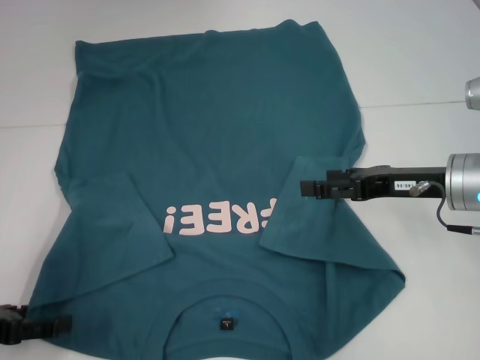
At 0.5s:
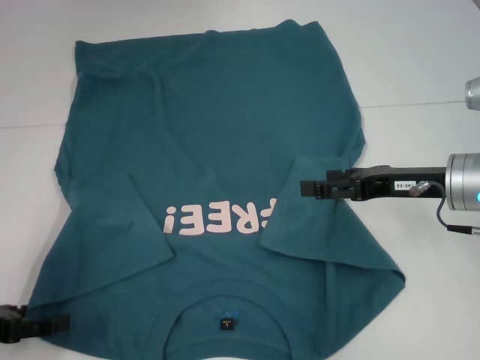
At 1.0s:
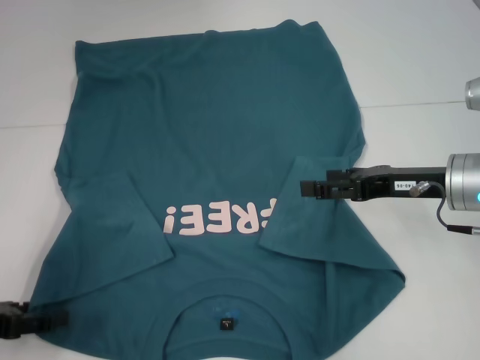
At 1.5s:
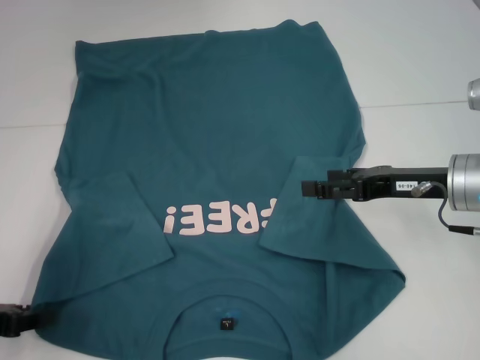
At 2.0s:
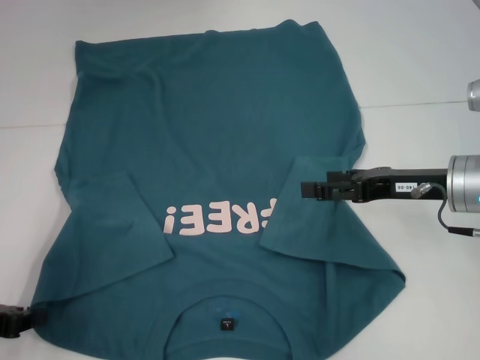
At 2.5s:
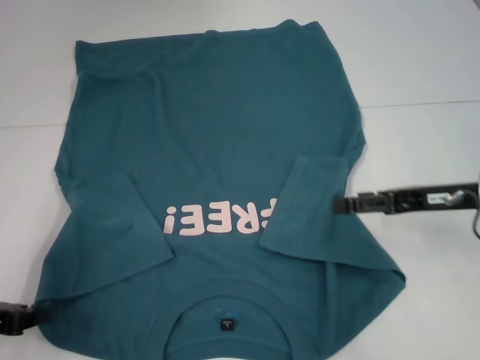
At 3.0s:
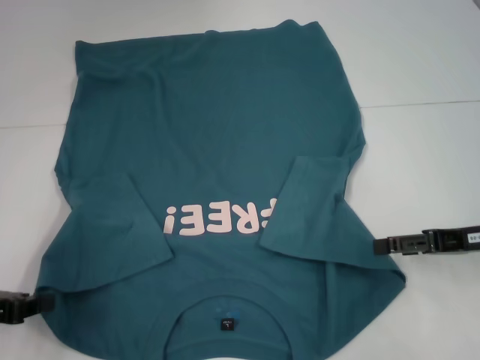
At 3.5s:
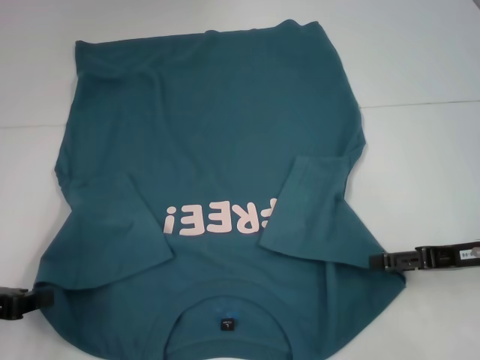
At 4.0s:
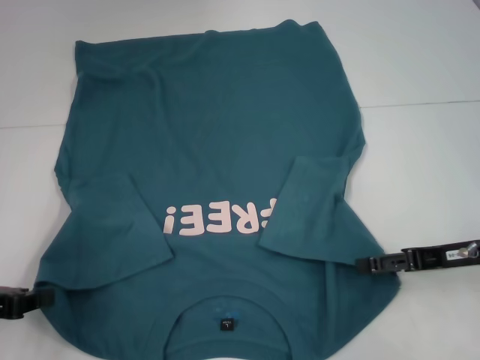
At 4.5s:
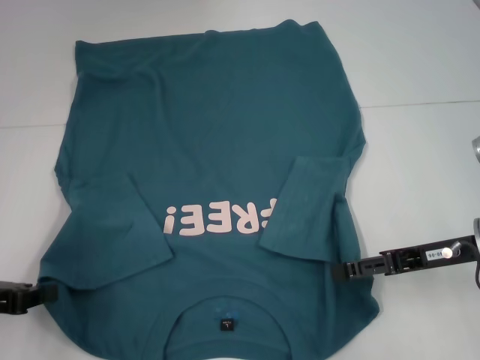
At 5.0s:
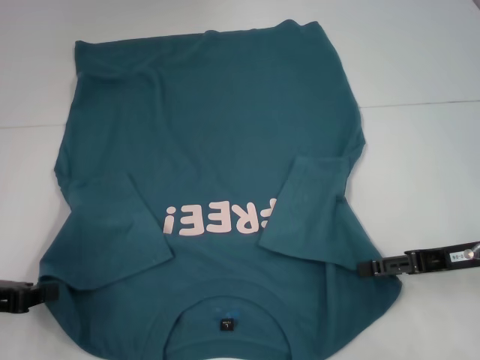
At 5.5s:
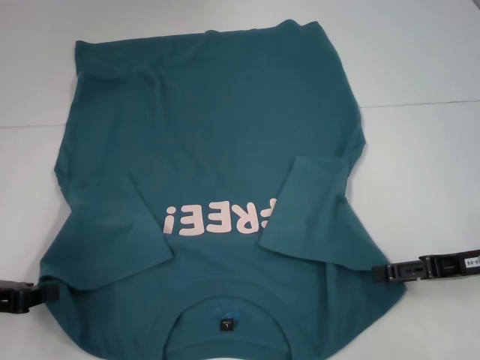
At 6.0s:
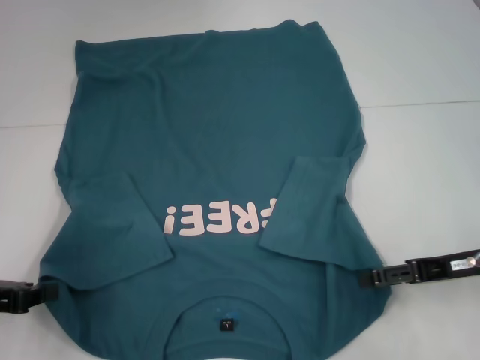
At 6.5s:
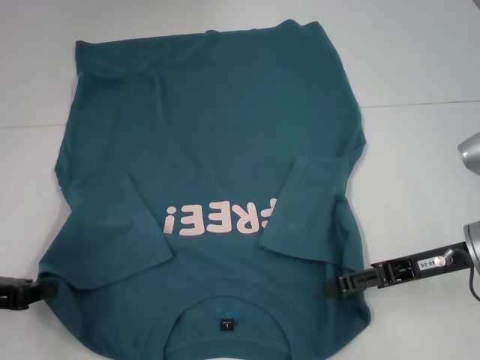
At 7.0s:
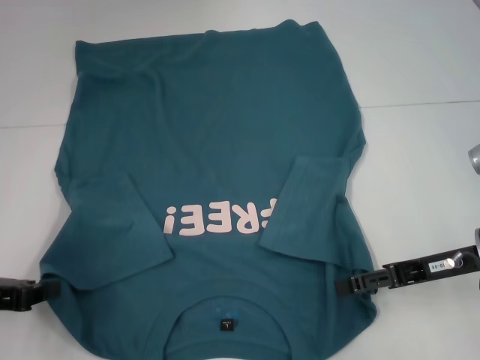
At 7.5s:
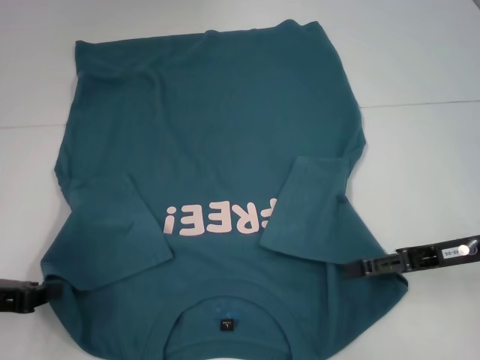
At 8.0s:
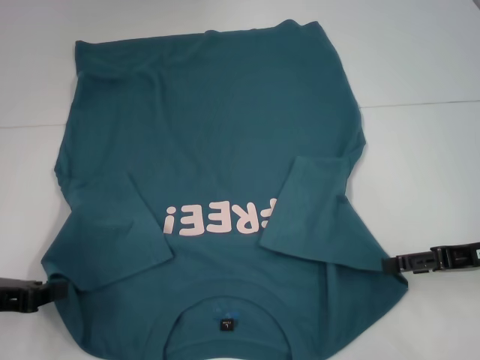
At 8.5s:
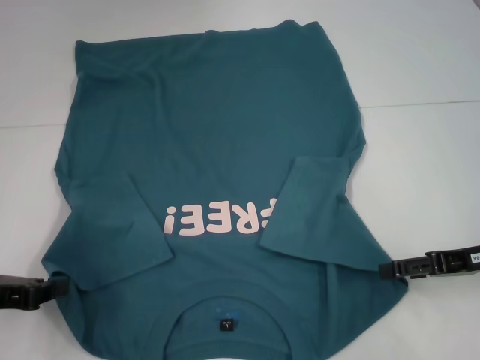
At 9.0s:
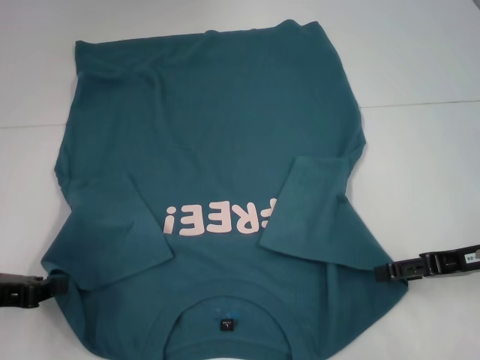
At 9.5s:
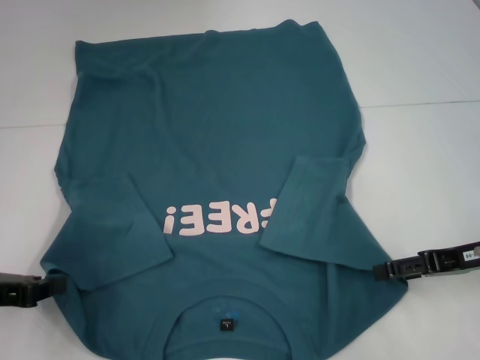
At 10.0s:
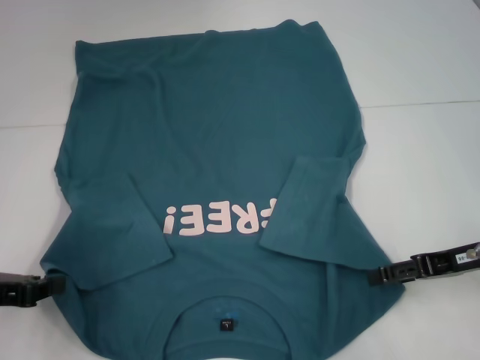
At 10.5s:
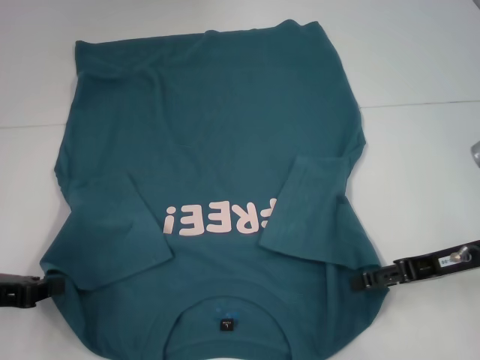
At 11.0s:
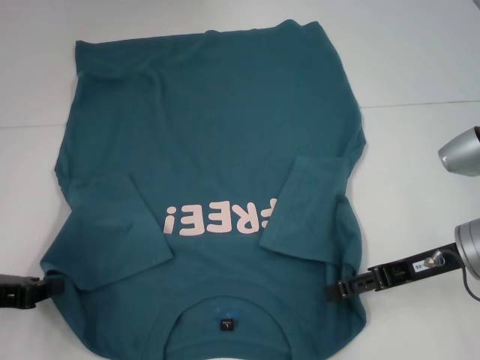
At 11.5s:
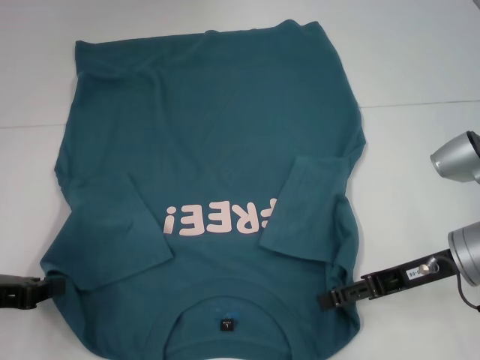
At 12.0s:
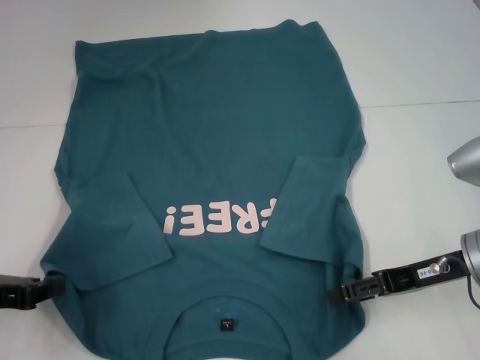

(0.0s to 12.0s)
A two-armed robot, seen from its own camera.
Step, 0.0s - 2.5s: Grab the bottom left corner with your left hand.
0.0s - 2.0s: The left gripper closes.
2.0s - 4.0s: The right gripper shifts by approximately 5 cm.
4.0s - 12.0s: The grippers make only small movements.

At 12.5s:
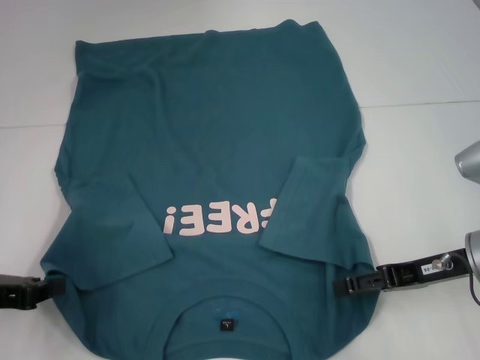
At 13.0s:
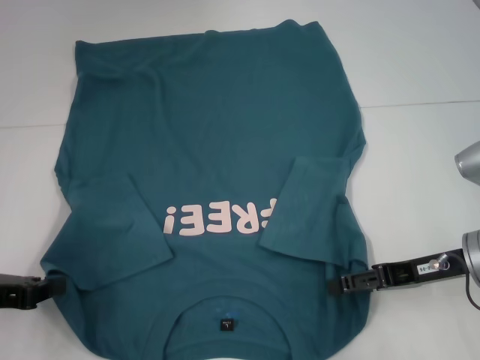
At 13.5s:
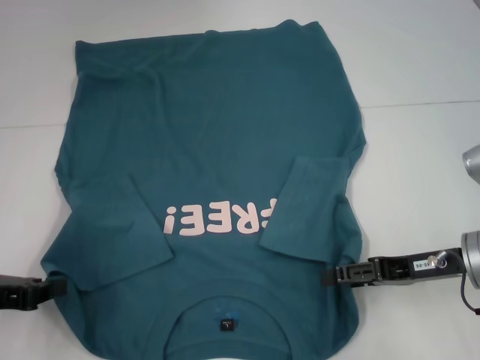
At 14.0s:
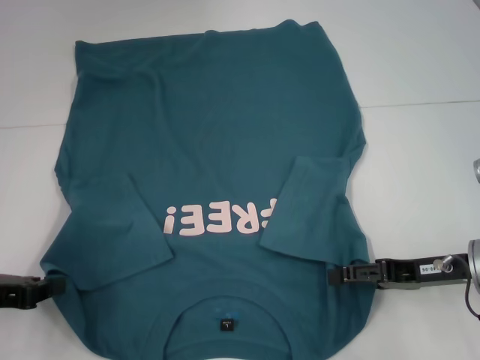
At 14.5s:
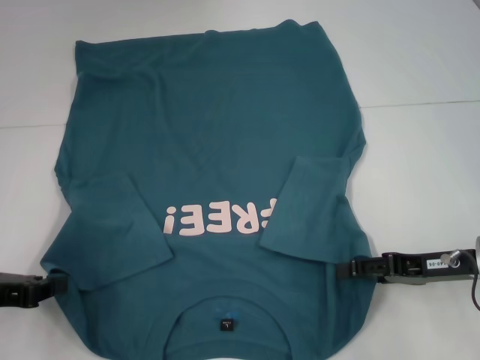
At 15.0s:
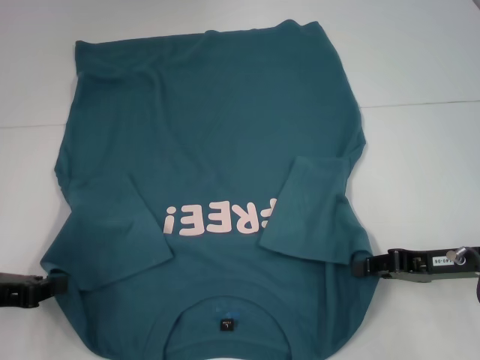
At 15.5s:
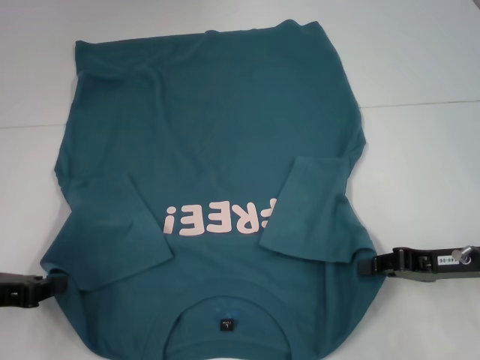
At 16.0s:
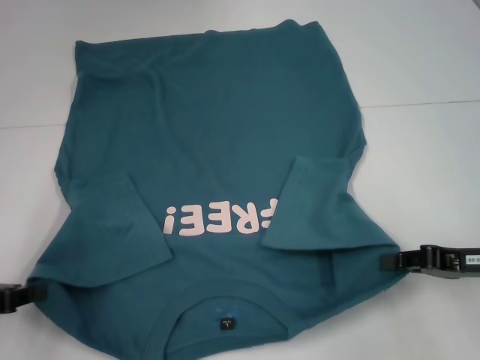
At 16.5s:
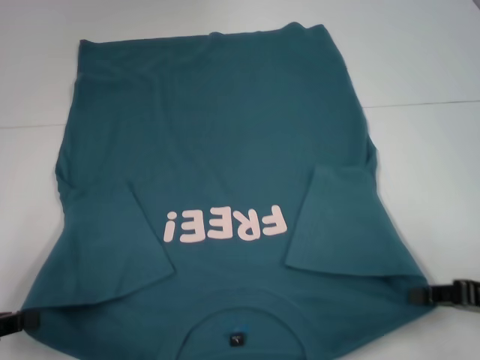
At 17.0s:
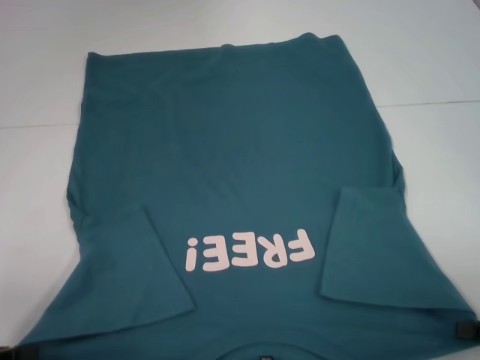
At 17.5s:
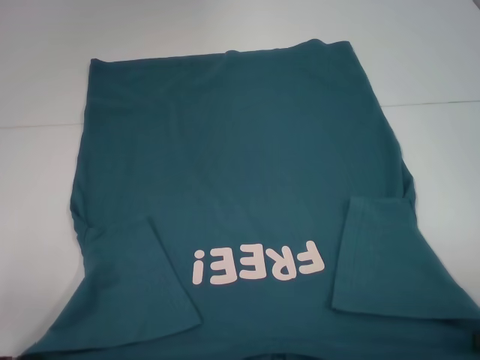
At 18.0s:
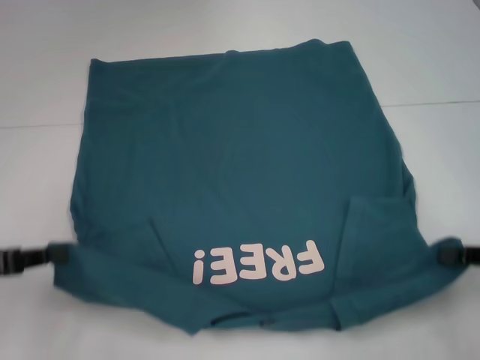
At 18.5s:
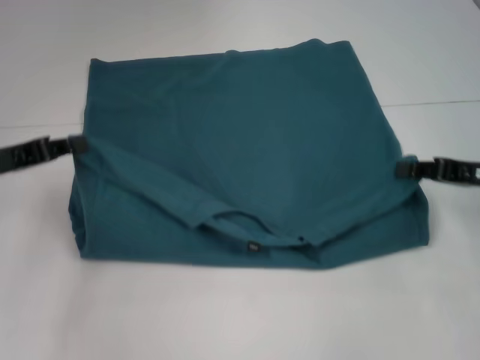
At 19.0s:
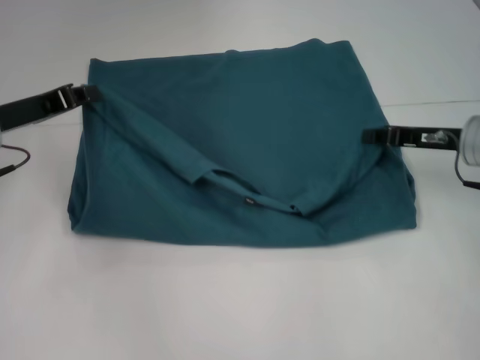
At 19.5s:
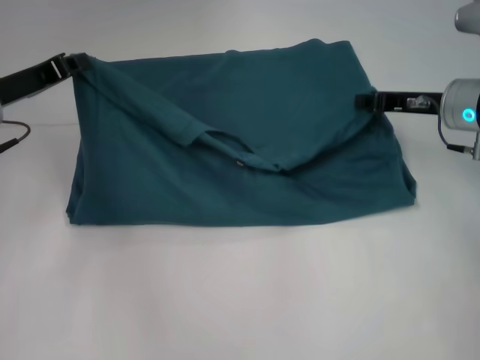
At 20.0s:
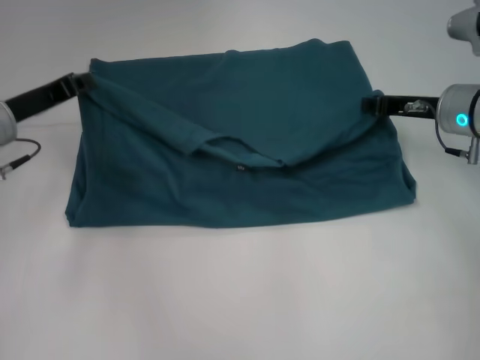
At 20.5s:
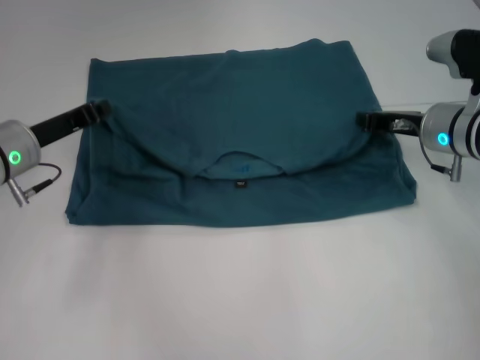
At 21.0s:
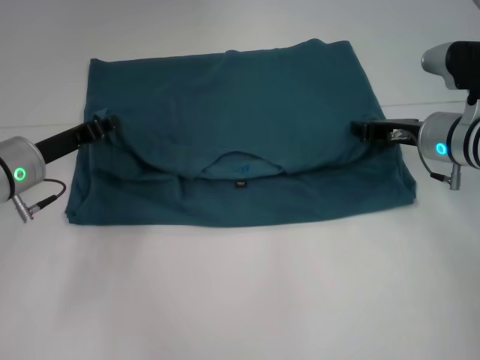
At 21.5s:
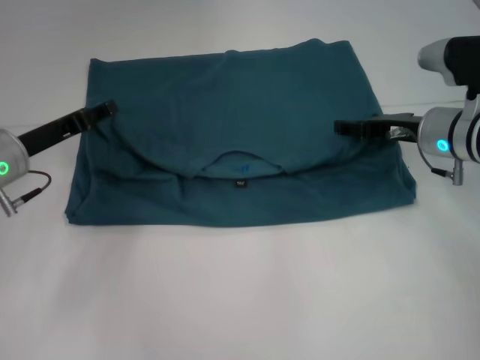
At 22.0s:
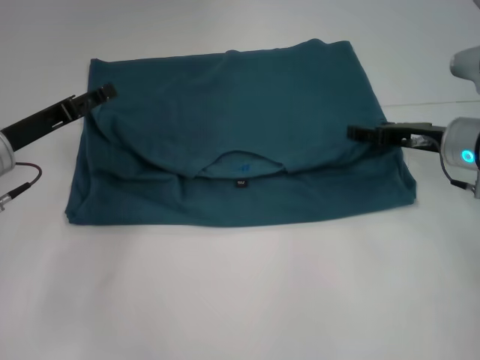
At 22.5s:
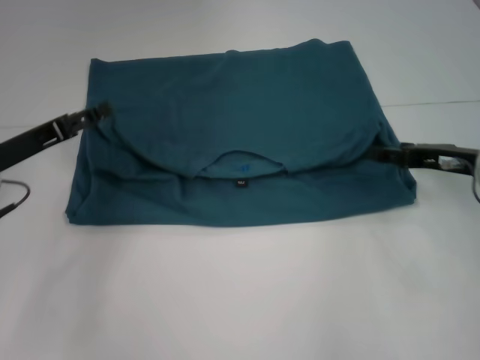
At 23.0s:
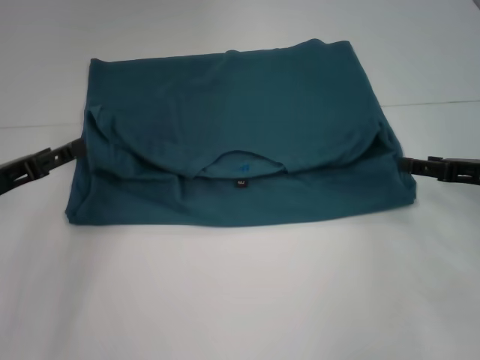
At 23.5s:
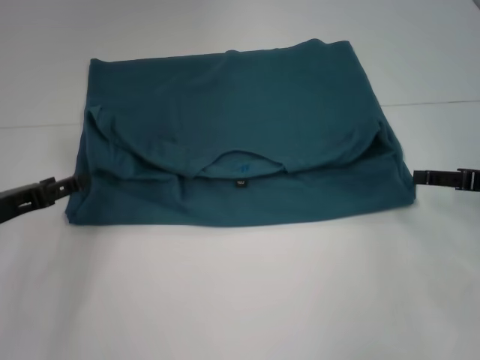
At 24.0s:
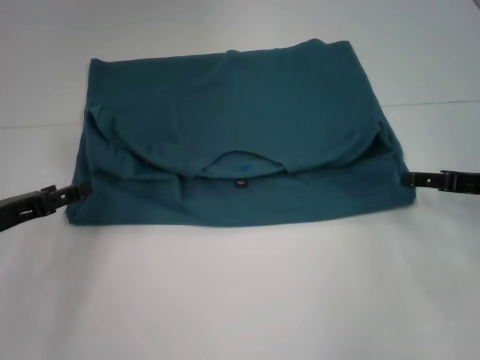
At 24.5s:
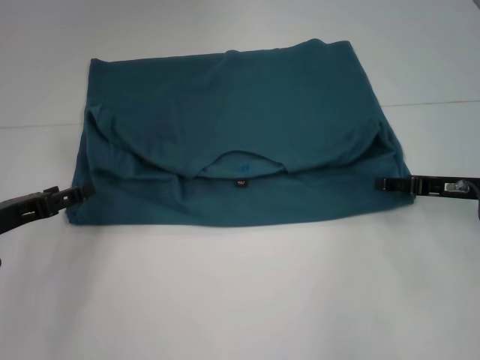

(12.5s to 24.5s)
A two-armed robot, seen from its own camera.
Step, 12.5s - 15.5s: Grab the bottom right corner with your right hand.
Step, 16.0s - 22.0s: Fold the clothes to the left.
Step, 16.0s - 22.0s: Fold the clothes to the right.
12.5s - 14.5s: The grippers move only a little.
14.5s - 16.5s: The left gripper shifts by about 5 cm. Meanwhile the right gripper heads to the right, covering approximately 5 cm, and closes up.
16.5s - 18.5s: Both grippers travel together forward, about 10 cm.
18.5s - 20.5s: The right gripper is displaced forward and to the left by about 10 cm; the left gripper heads to the right and forward, covering approximately 10 cm.
20.5s - 22.5s: The right gripper moves backward, some 5 cm, and opens, while the left gripper ends up some 5 cm from where it was, and opens.
22.5s - 24.5s: The left gripper moves roughly 5 cm.

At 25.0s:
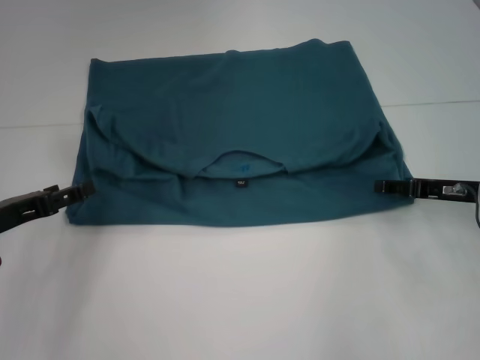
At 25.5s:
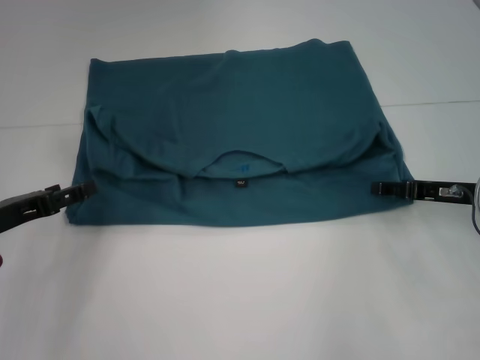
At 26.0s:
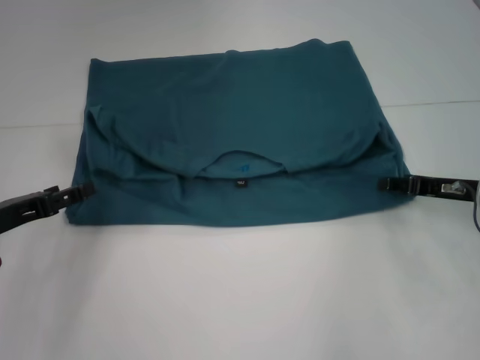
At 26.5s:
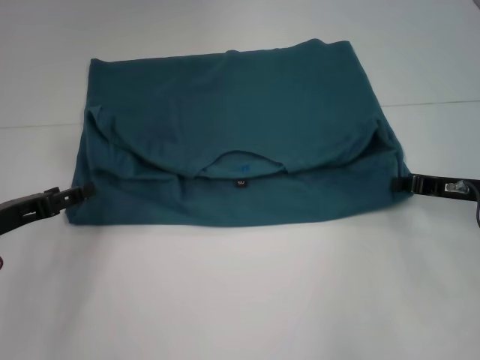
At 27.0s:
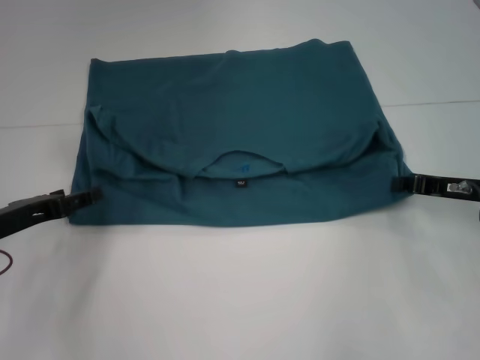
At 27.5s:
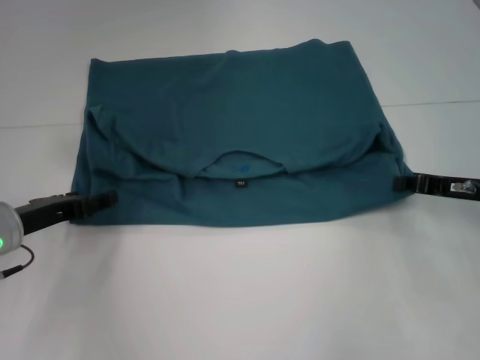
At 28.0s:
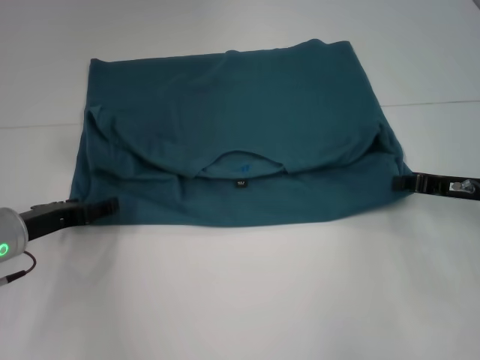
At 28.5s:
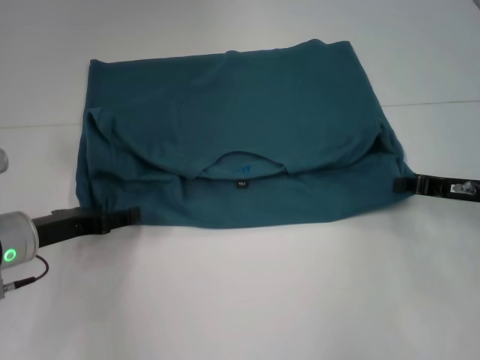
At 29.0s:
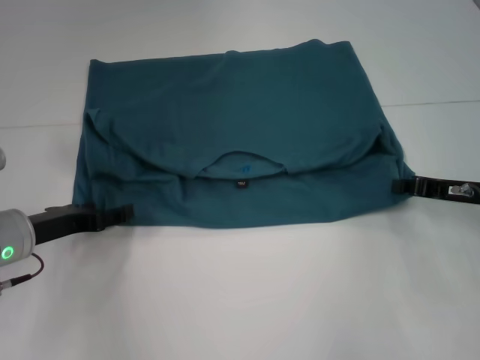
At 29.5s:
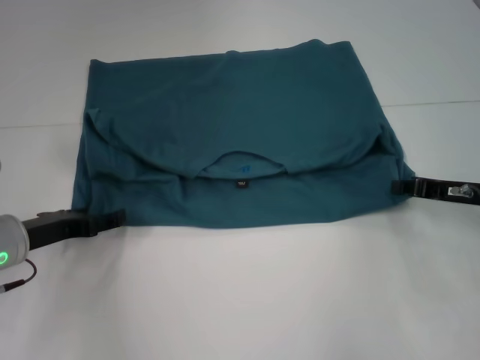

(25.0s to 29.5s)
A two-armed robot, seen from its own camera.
25.0s - 27.0s: The right gripper closes its fingers.
27.0s - 29.5s: The grippers move only a little.
